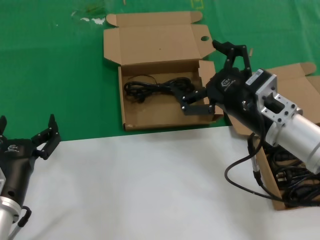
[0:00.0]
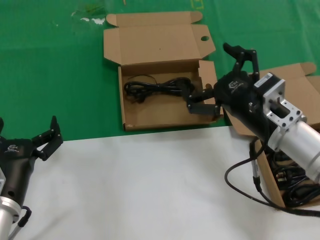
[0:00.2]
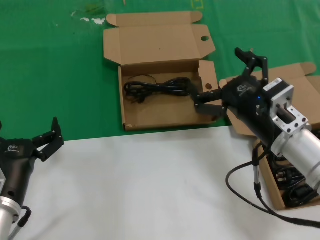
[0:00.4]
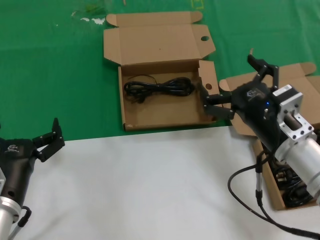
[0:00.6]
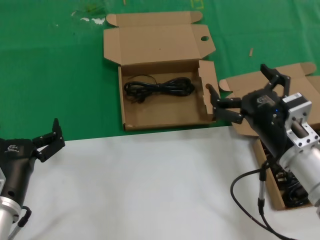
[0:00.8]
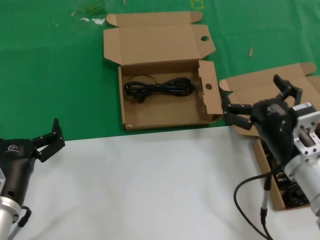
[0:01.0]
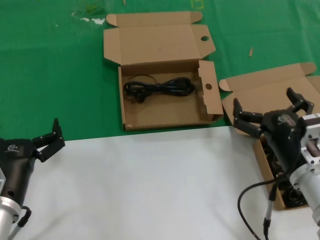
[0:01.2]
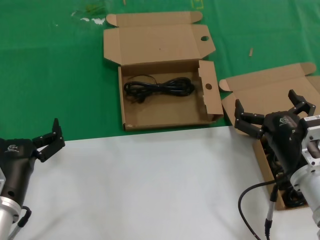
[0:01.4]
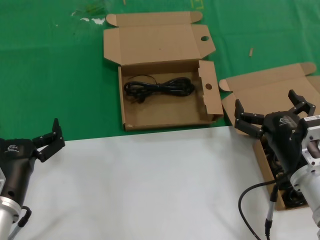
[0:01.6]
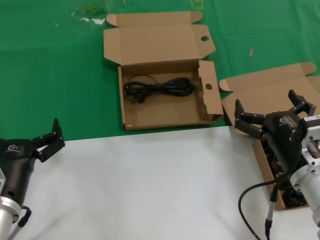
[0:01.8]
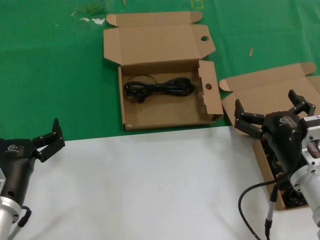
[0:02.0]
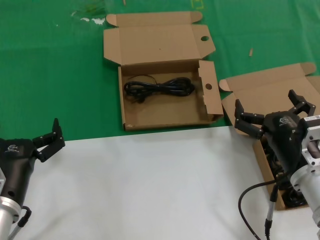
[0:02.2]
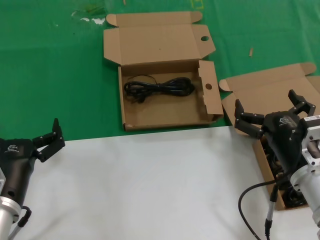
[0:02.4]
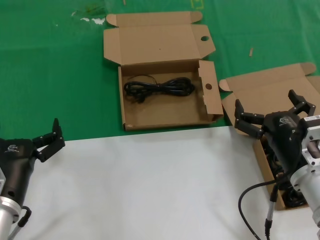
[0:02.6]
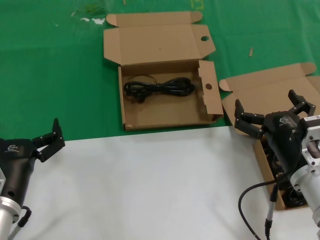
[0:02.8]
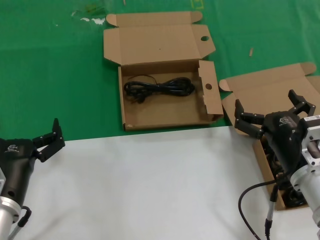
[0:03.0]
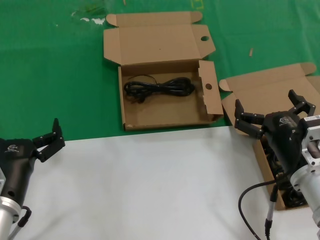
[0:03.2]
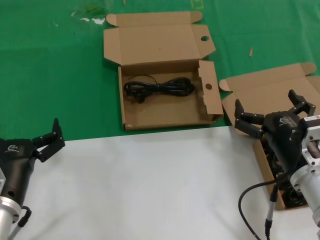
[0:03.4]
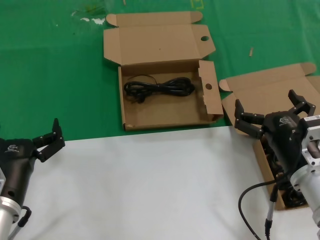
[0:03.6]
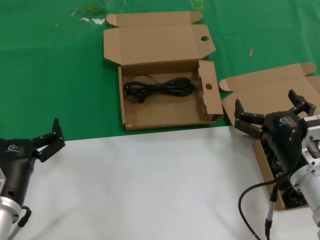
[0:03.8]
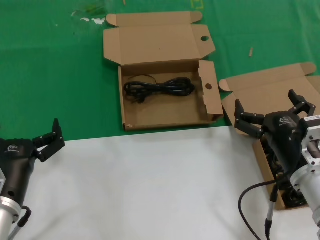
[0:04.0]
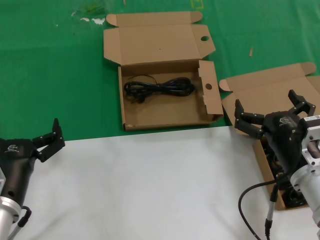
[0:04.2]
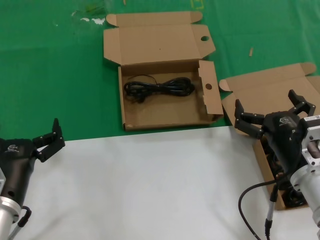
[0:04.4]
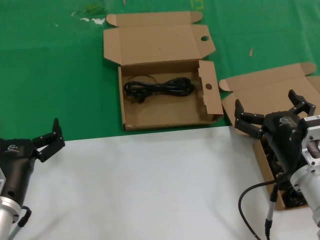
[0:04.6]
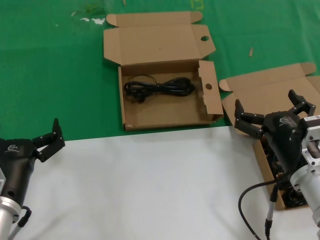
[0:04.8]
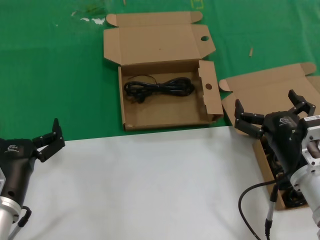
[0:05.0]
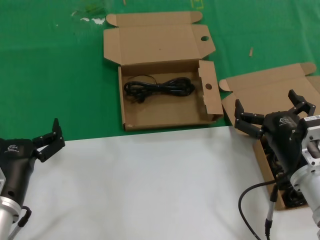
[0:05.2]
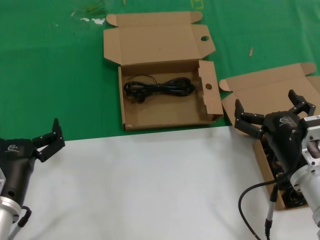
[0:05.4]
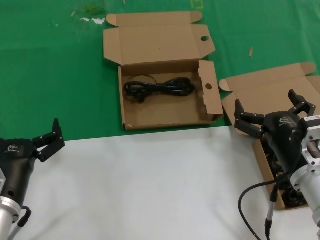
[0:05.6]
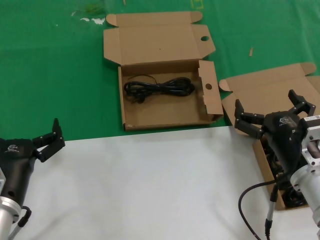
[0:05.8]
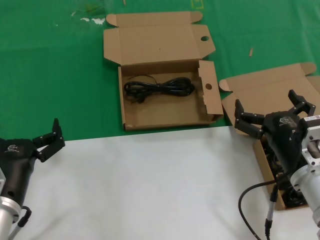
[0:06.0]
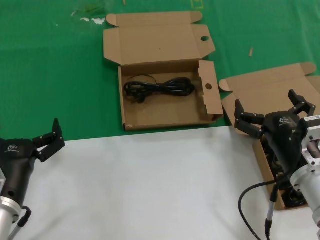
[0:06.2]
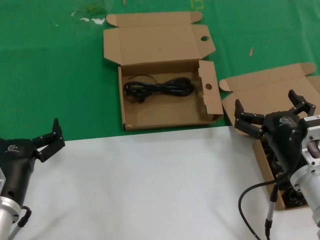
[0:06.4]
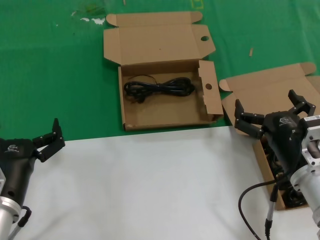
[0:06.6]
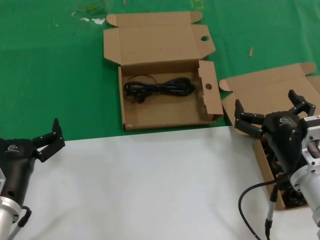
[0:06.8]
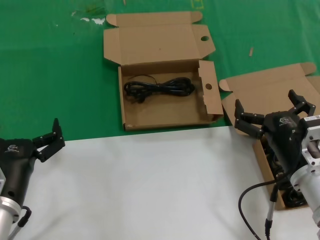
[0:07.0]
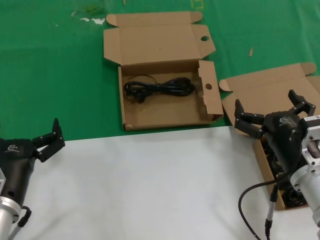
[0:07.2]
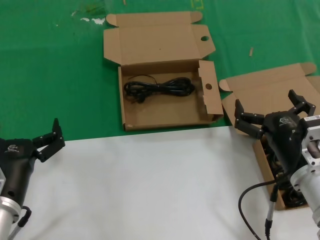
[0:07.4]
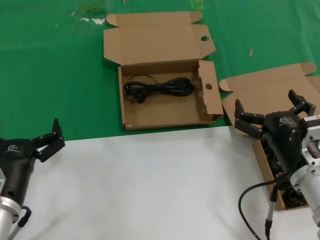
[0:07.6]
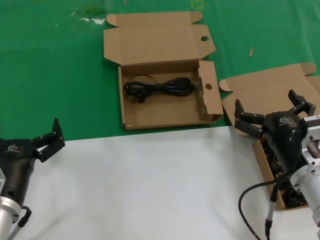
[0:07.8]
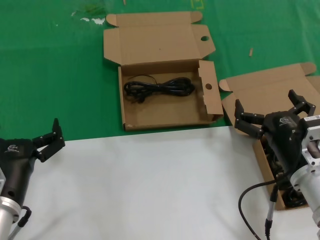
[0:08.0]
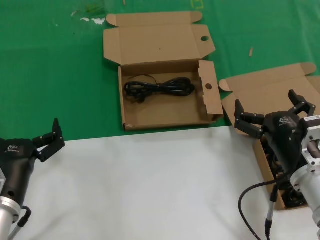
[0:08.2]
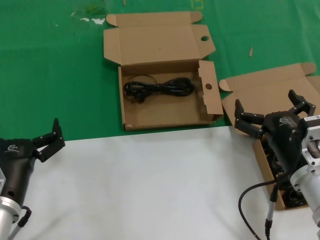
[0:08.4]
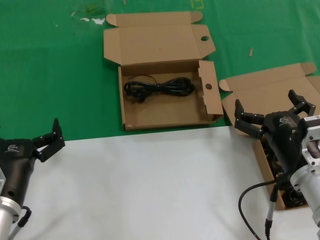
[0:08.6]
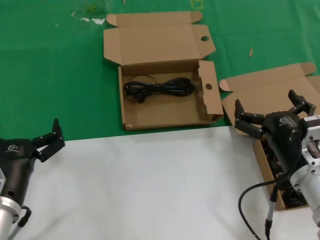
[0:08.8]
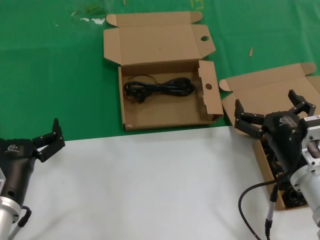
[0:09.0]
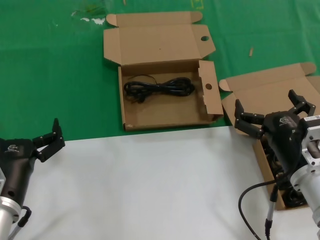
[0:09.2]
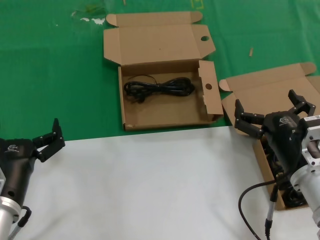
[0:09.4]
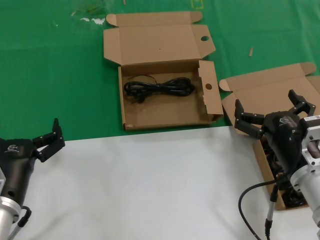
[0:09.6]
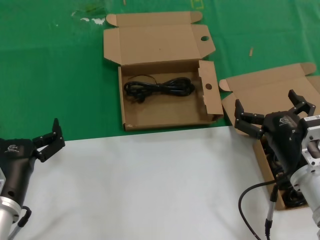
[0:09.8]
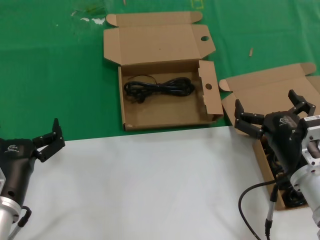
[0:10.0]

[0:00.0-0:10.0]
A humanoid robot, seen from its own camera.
Task of the whole recording: take the parts from the box containing them and put them into an empty box.
0:00.0 to 0:01.4: The right hand heads downward and backward, covering some 10 cm.
0:01.4 to 0:10.0: Both hands stay about where they are.

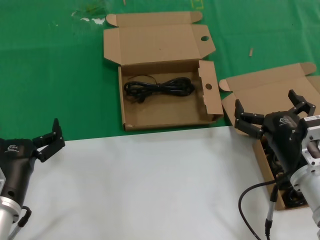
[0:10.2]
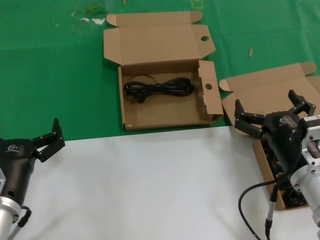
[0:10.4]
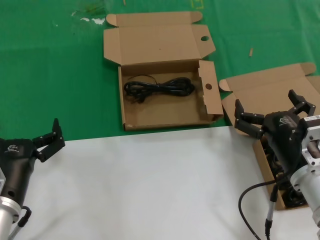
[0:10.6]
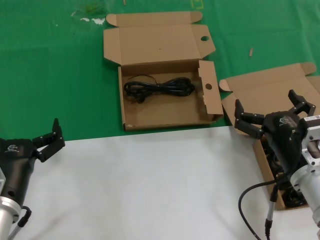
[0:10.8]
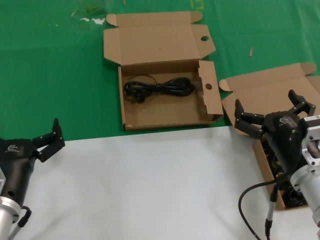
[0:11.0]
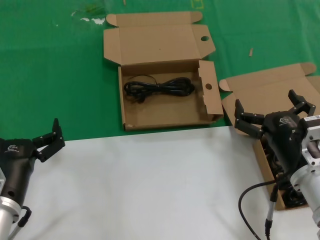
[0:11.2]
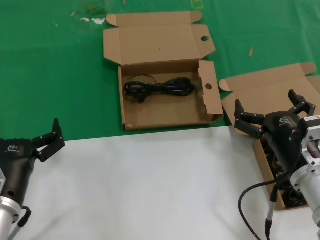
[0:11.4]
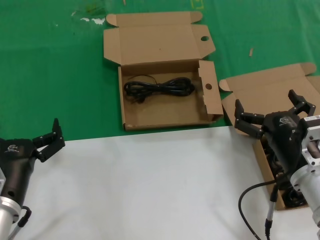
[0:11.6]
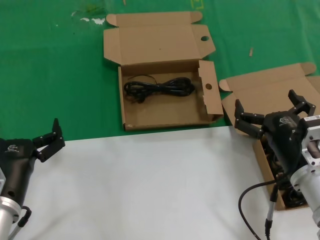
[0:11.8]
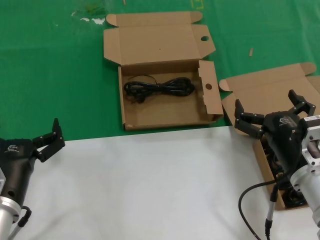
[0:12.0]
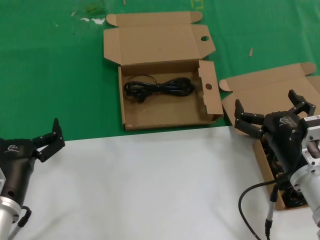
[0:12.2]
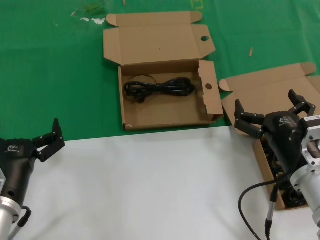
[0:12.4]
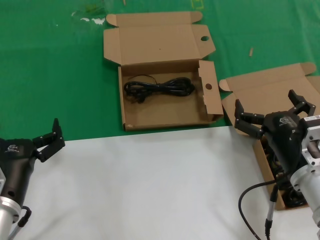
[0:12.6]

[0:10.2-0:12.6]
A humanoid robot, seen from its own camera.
Task of the whole recording: take the parts from the box containing them and put them into an empty box.
0:10.2 to 0:12.6: Both hands stay about where they are.
